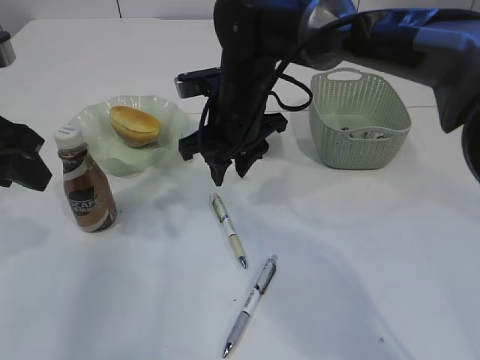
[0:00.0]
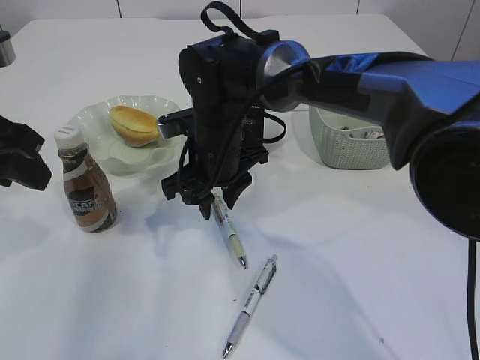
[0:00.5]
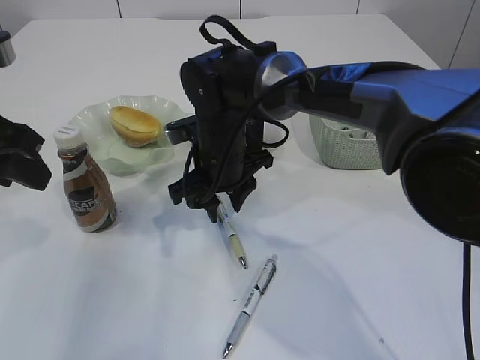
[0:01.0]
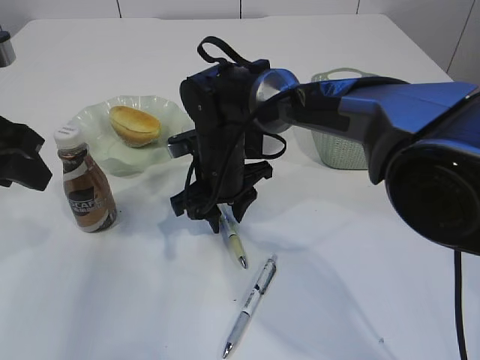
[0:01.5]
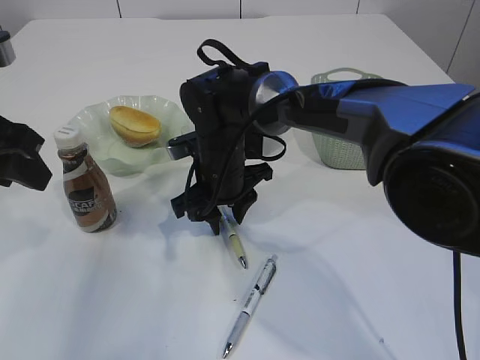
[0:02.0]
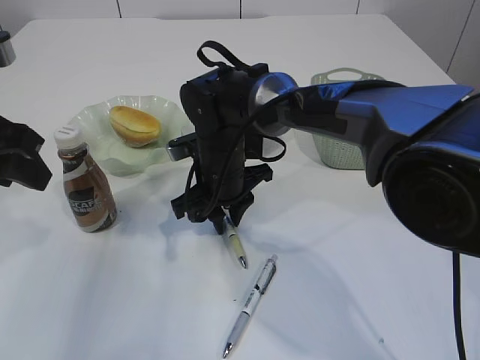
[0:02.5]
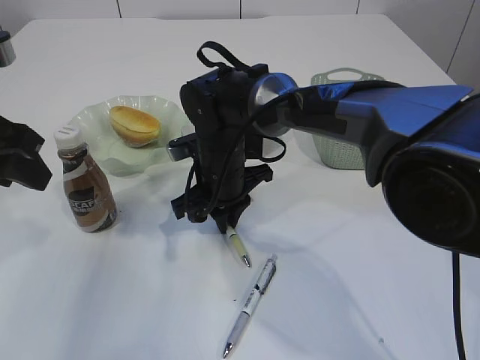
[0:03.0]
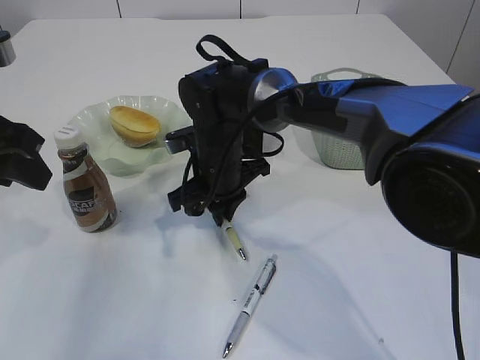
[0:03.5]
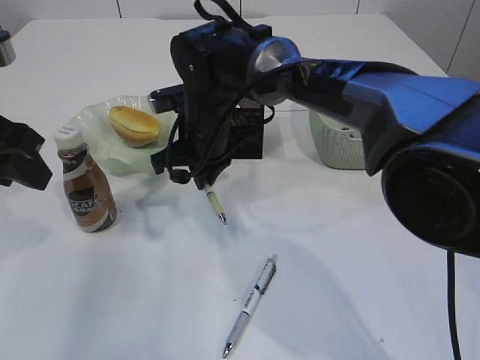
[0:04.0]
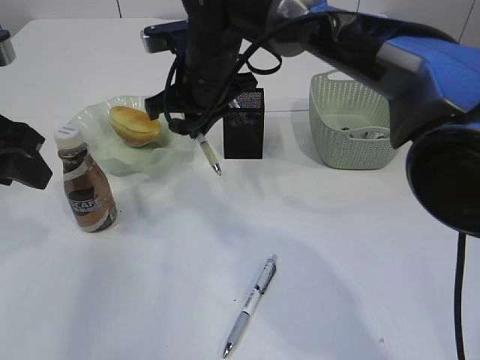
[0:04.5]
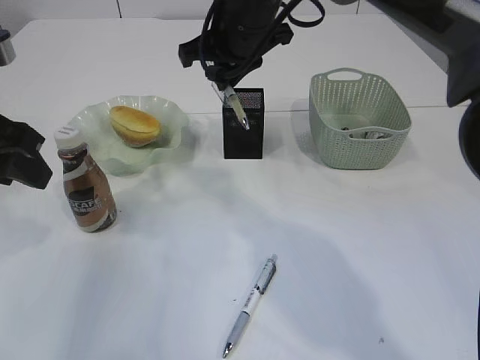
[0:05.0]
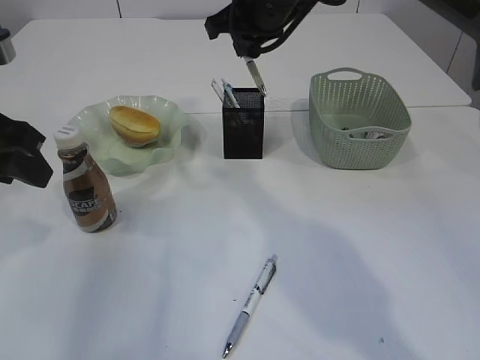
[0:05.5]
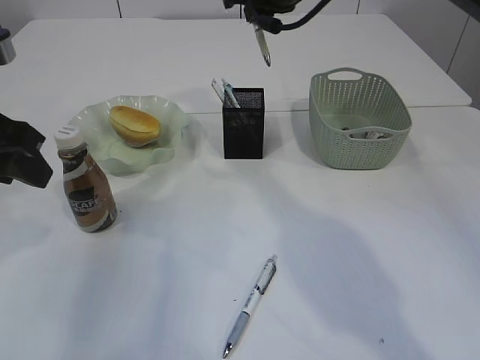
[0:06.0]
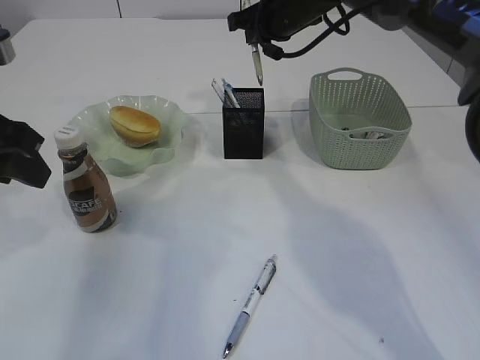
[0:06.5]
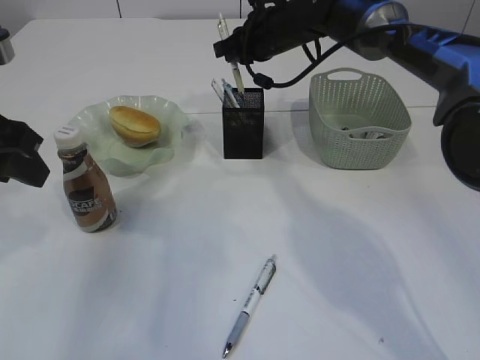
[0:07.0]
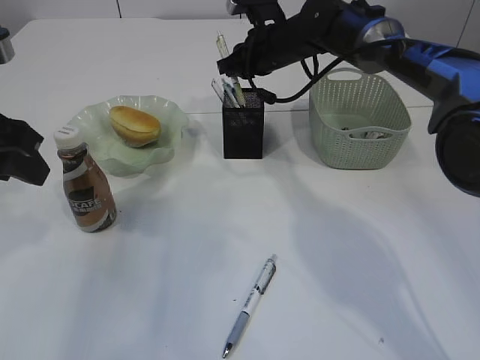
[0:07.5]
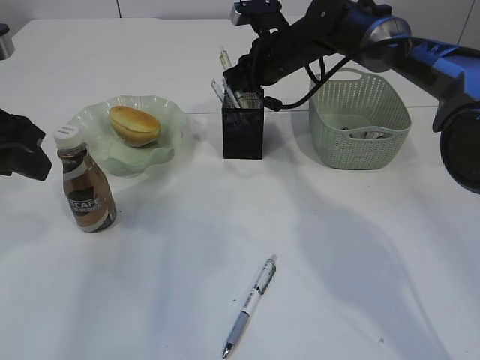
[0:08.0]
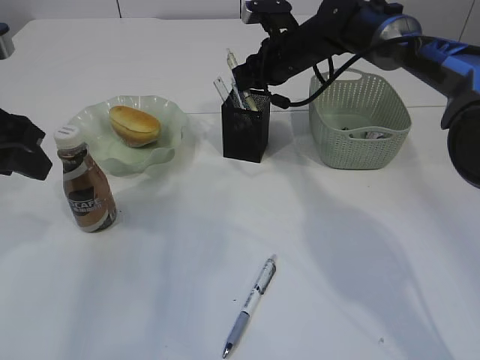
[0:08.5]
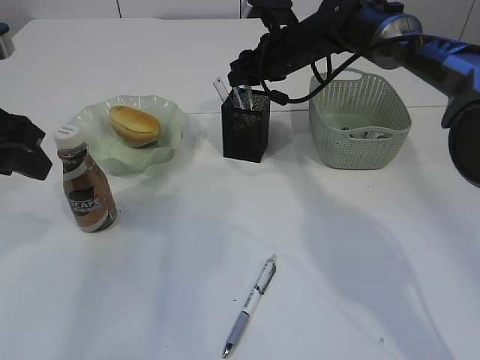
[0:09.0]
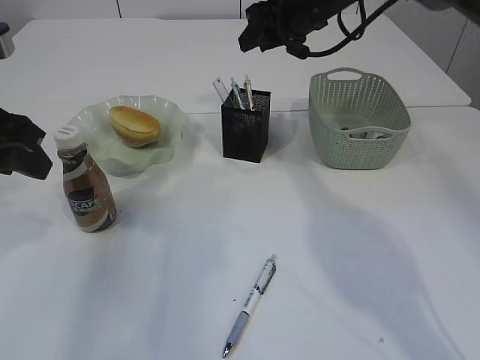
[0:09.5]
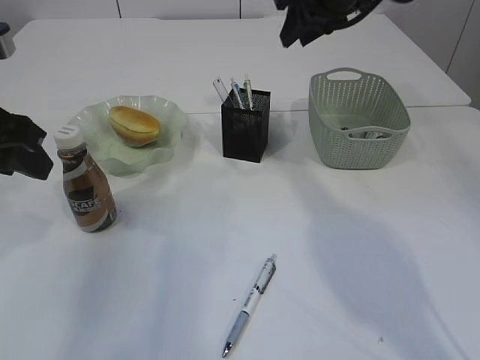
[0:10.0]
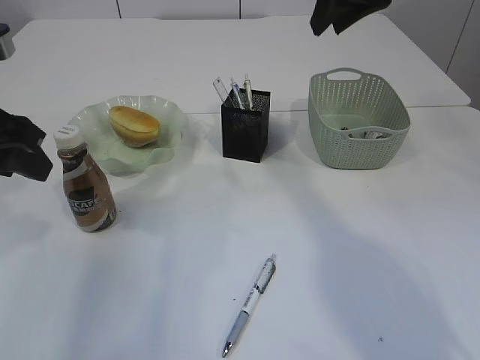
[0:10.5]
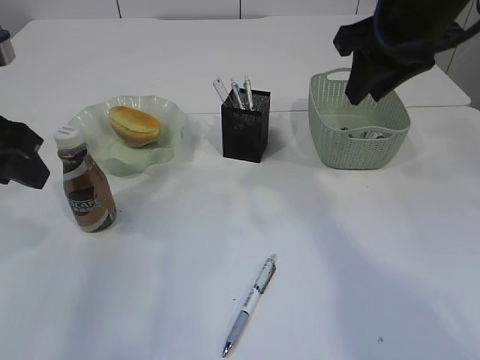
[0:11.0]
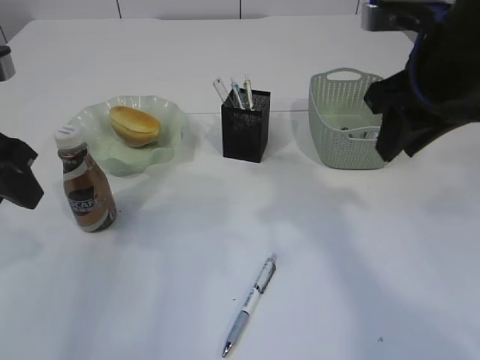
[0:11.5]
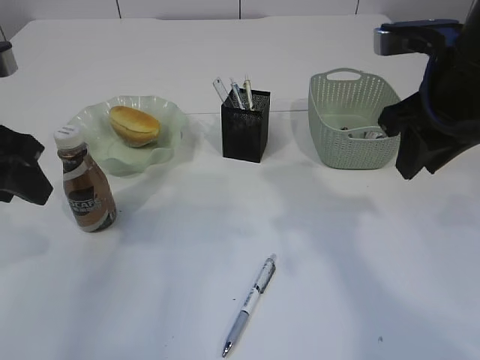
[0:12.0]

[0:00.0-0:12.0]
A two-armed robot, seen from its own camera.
Step, 0:00.0 to 0:04.0: Pick up the pen with right arm.
Step, 0:04.5 to 0:09.0: Place the pen into the pen holder.
0:00.0 to 0:02.0: The right gripper moves downward, roughly 10 cm.
0:02.0 to 0:04.0: The right gripper moves approximately 5 cm, and closes up.
0:04.0 to 0:06.0: The right gripper shifts roughly 20 cm upward, to the right and forward.
0:06.0 to 0:08.0: The right gripper shifts approximately 10 cm downward.
0:08.0 to 0:10.0: The right gripper heads upward, backward and to the right, covering roughly 15 cm, and opens.
0:10.0 to 0:12.0: The right gripper is displaced backward by approximately 20 cm.

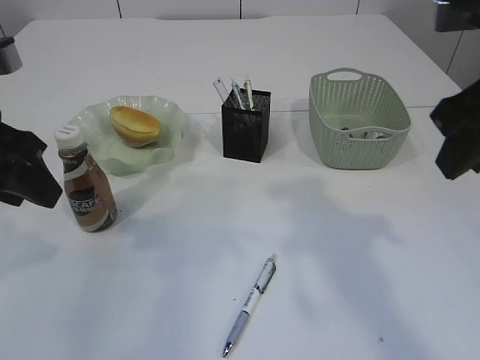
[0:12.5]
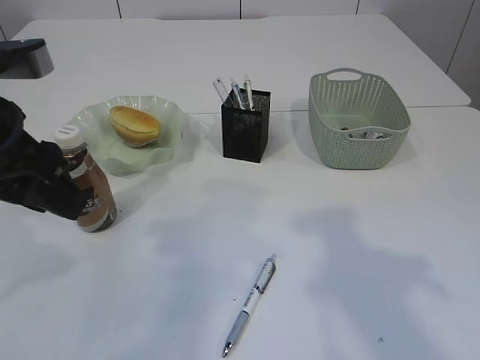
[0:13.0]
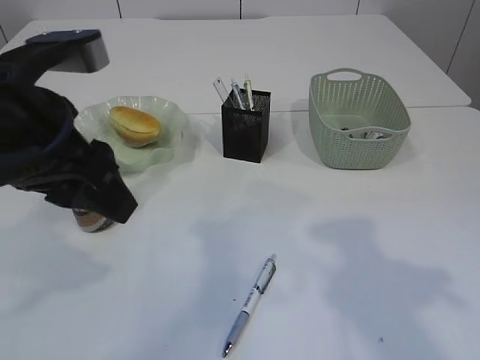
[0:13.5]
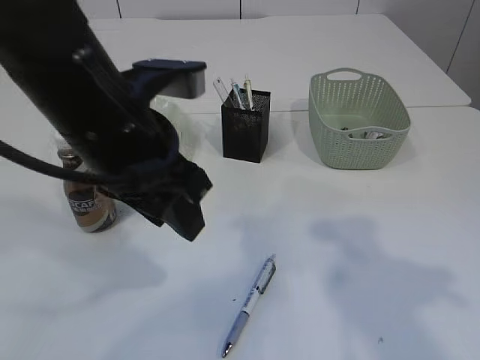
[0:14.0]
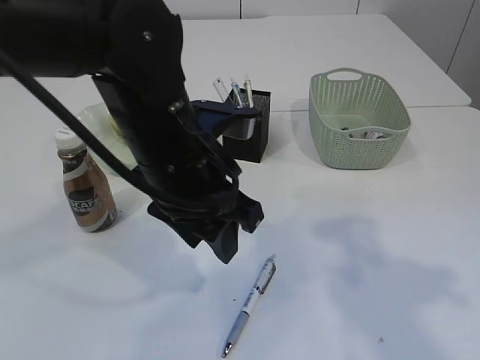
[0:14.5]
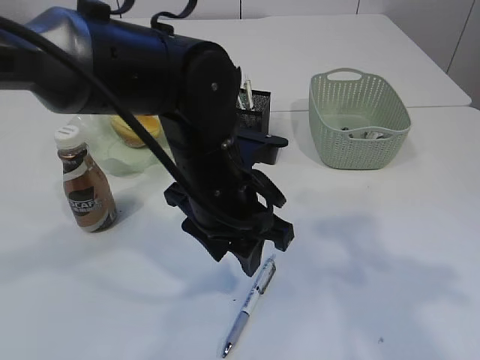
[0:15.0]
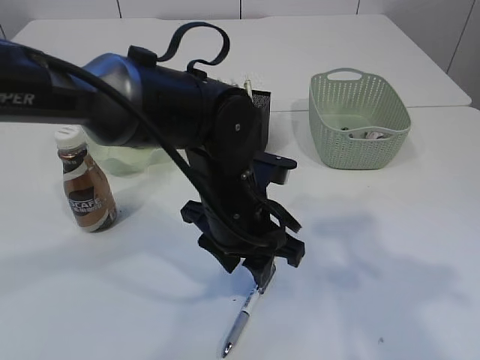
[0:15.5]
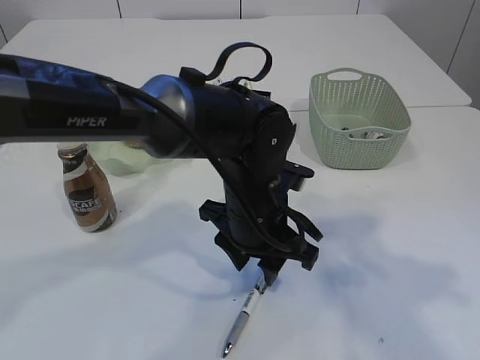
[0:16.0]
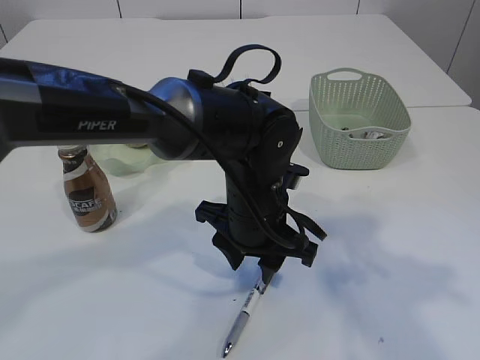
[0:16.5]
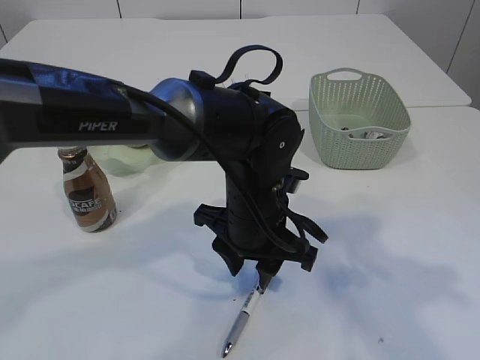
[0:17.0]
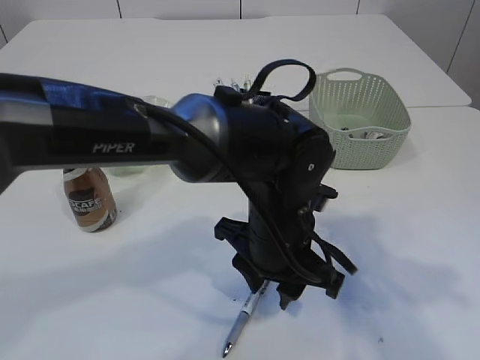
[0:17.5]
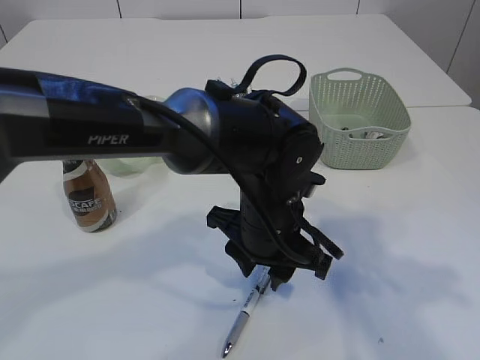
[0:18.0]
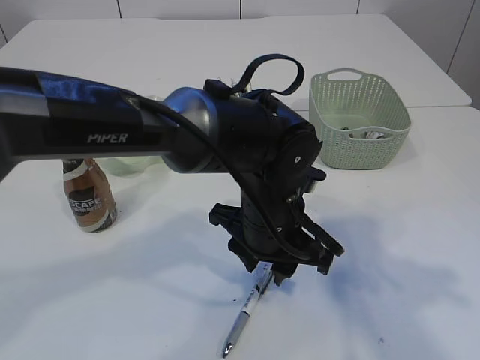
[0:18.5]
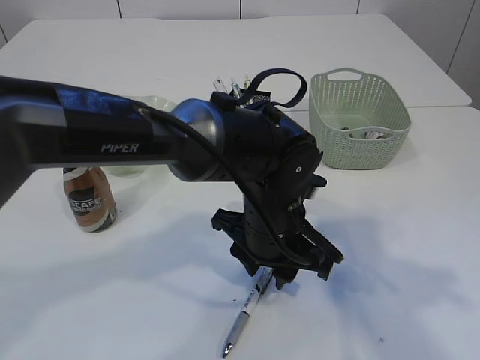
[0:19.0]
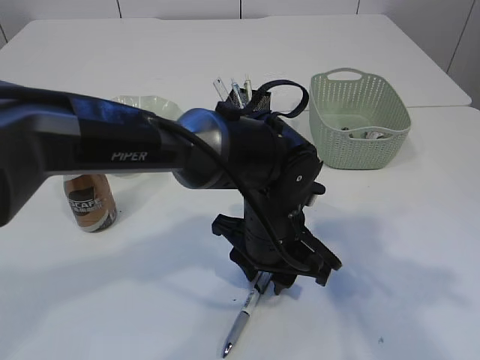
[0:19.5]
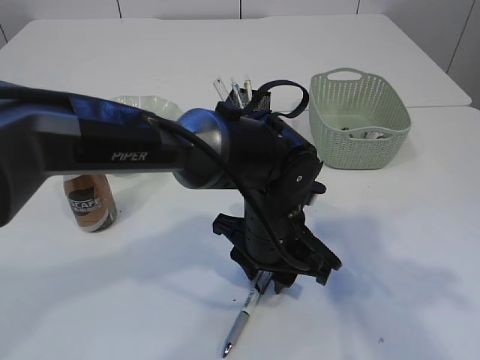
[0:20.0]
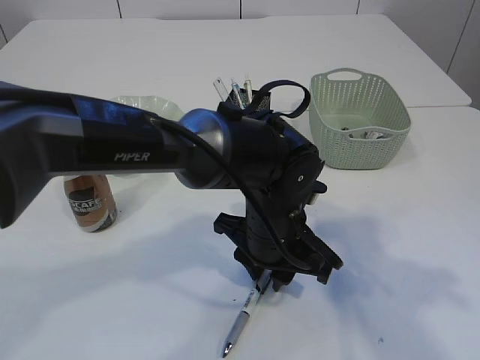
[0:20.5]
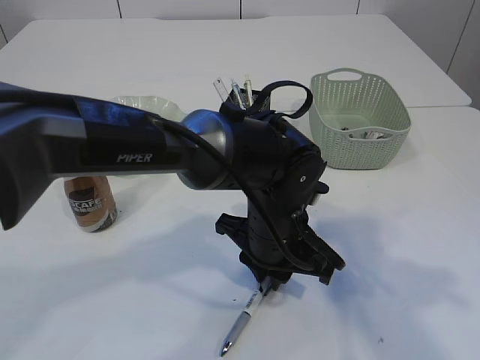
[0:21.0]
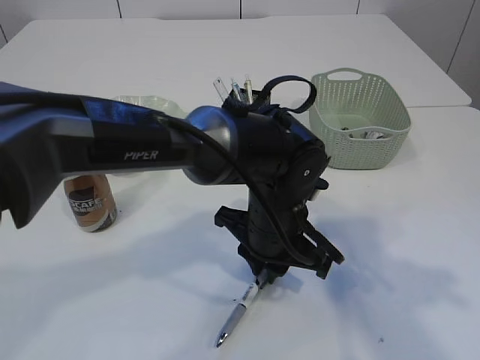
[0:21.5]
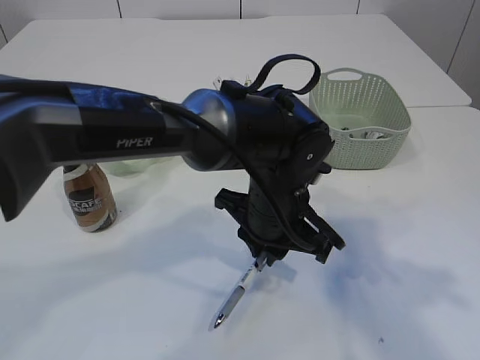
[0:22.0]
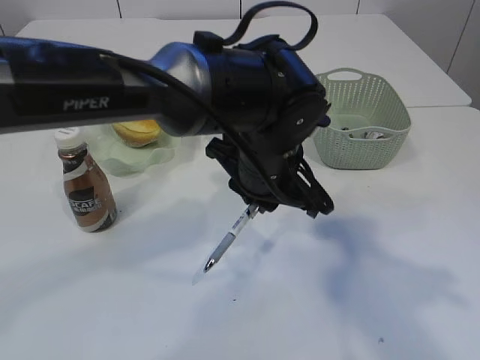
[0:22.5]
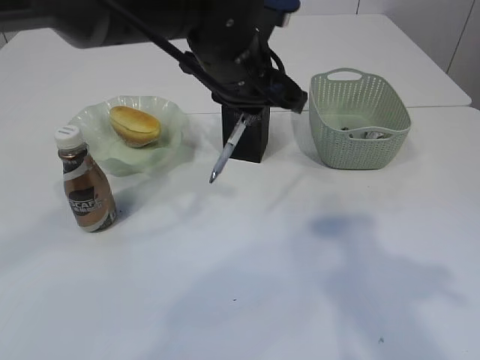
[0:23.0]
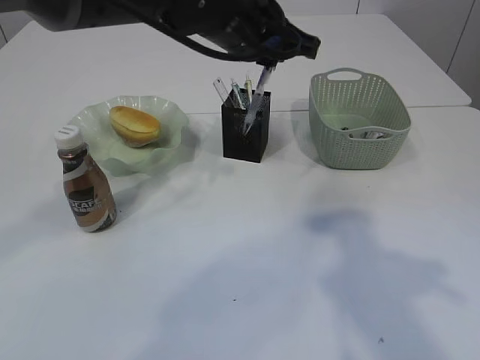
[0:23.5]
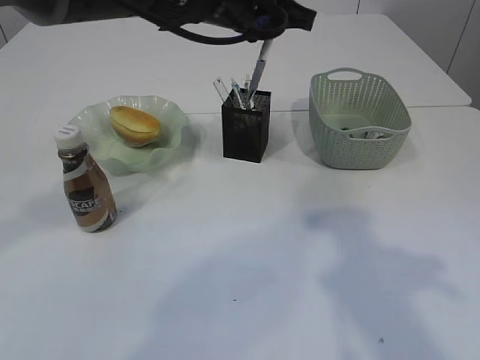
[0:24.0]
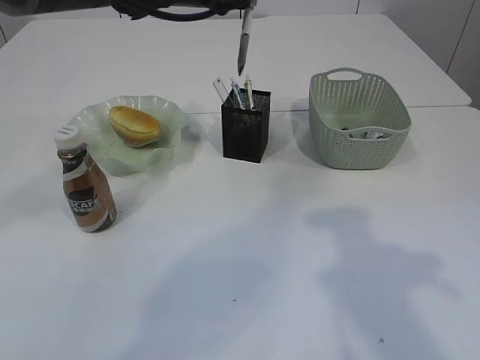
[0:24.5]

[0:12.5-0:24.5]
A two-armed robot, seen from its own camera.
Step, 0:12.5 to 0:22.5: Pick up the pen with left arm.
0:12.5 to 0:14.5: The left gripper moves to the right, roughly 20 cm. The right gripper goes some 10 cm backward.
0:14.5 to 0:16.5: The left gripper goes about 10 cm downward and to the right.
0:16.5 to 0:20.5: The grippers stay close to where they were, moving slightly.
0:20.5 to 0:22.5: The left gripper heads upward, covering about 10 cm.
0:22.5 to 0:24.5: The left gripper goes roughly 20 cm upward, forward and to the left.

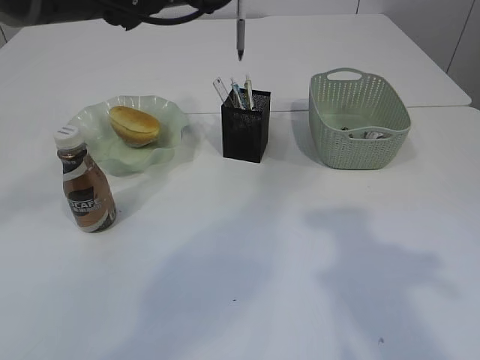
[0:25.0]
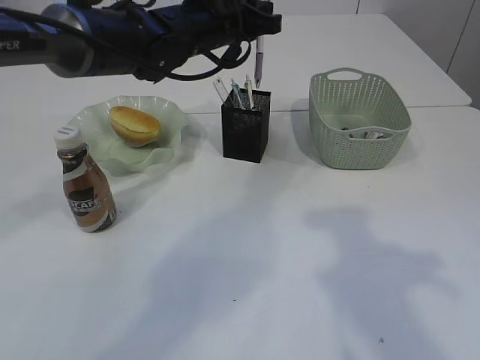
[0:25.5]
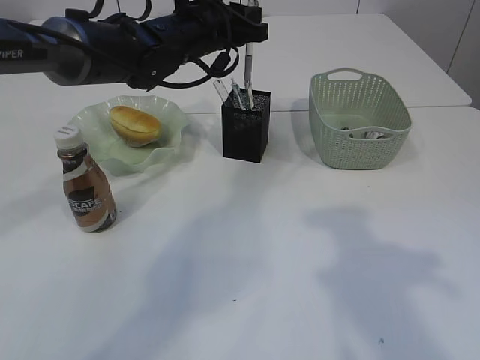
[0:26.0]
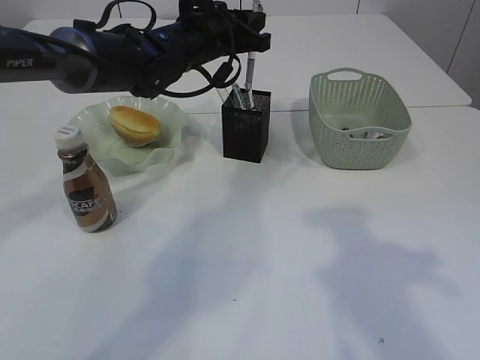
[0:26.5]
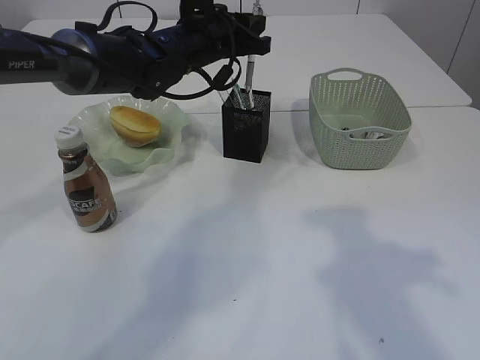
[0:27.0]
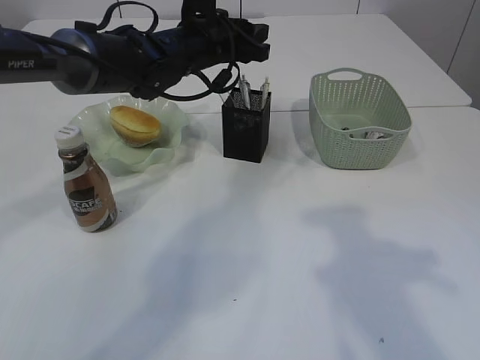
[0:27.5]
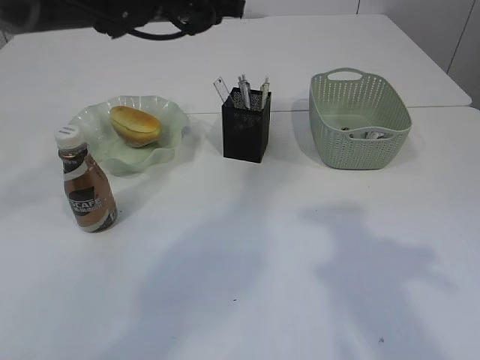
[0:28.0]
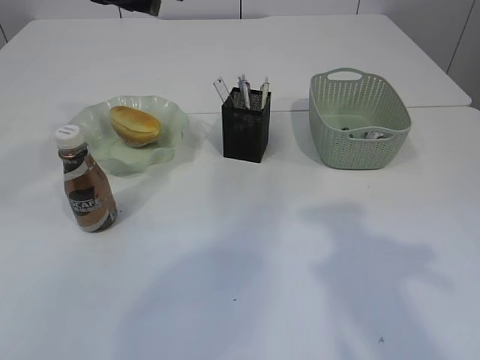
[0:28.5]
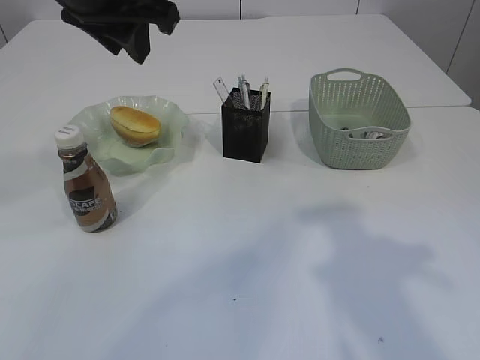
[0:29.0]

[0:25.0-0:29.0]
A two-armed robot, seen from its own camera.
Step, 0:25.0 to 0:27.5: Place the pen into the pen holder.
0:25.0 to 0:27.0: The left gripper goes roughly 10 cm downward.
0:27.0 to 0:29.0: The left gripper shifts some 20 cm backward, upward and to the left.
